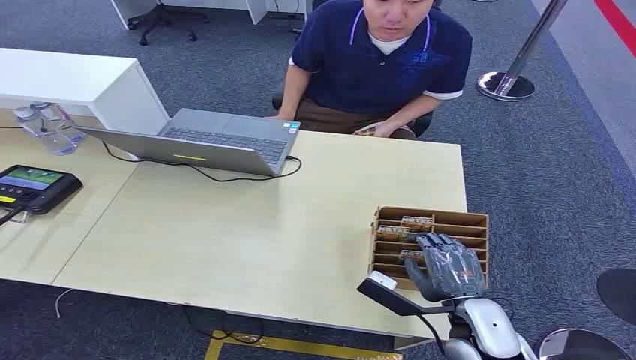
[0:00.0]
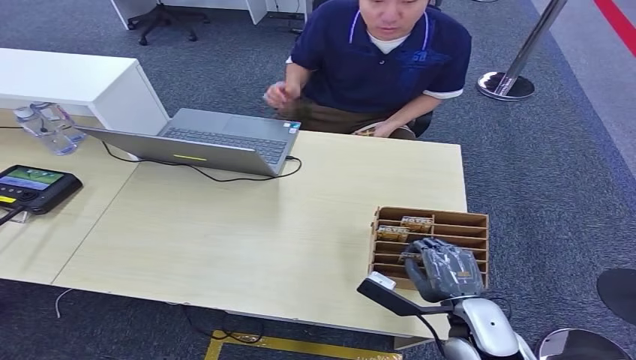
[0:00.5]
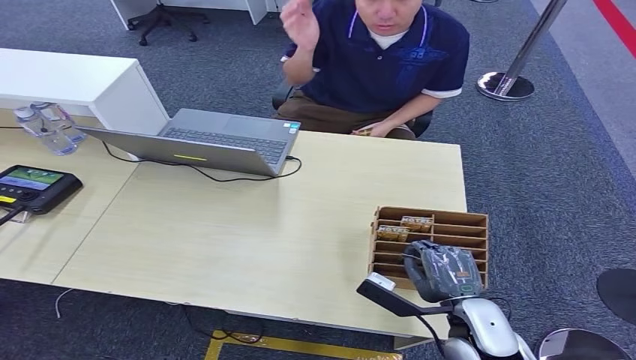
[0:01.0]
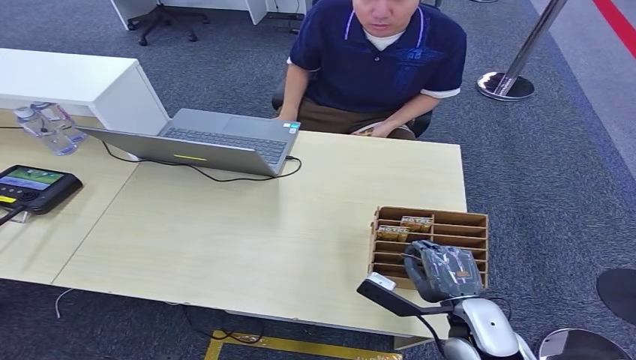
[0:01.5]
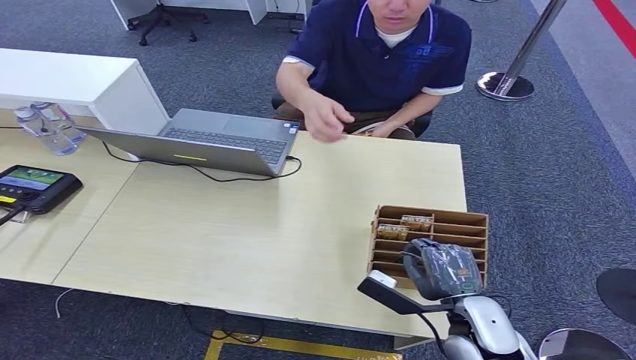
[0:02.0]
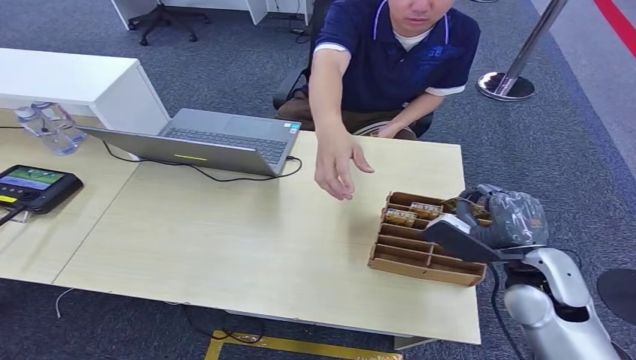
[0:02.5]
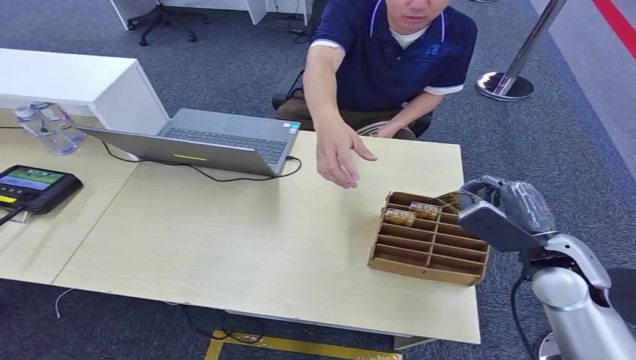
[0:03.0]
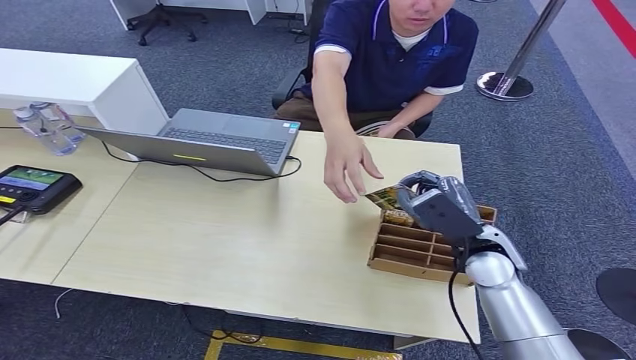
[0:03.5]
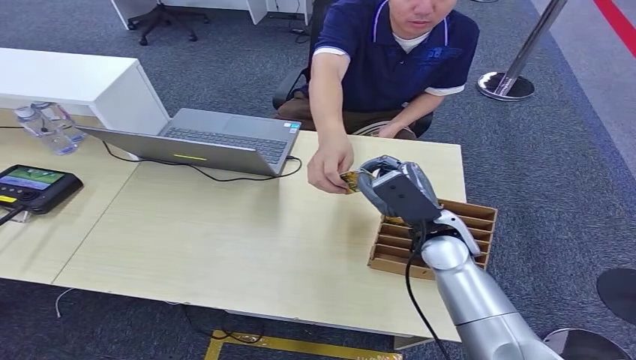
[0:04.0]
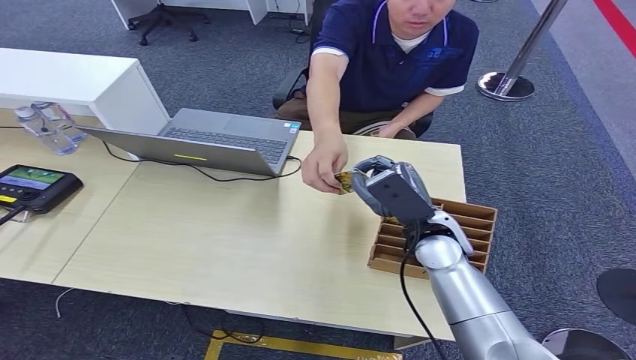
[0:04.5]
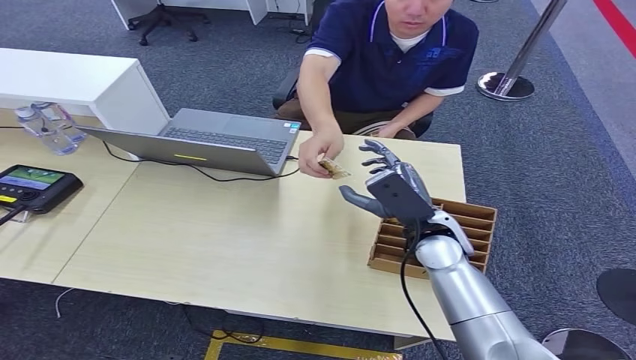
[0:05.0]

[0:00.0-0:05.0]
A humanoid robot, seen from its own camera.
Step, 0:00.0 to 0:02.5: Pick up the room card from the card holder.
Step, 0:03.0 to 0:05.0: Hand the room card to the target.
0:02.5 to 0:05.0: The right hand travels to the left and forward by approximately 15 cm.
